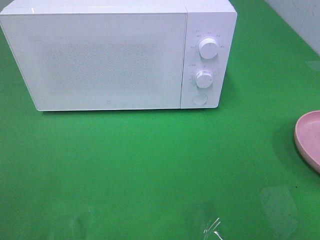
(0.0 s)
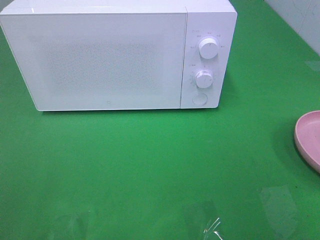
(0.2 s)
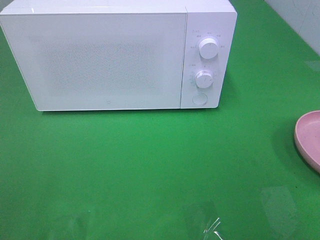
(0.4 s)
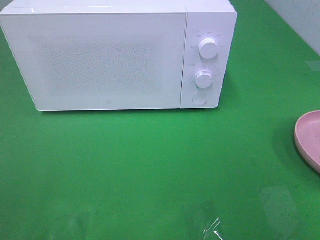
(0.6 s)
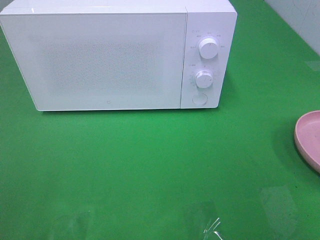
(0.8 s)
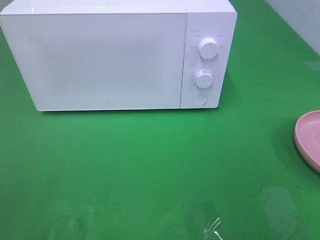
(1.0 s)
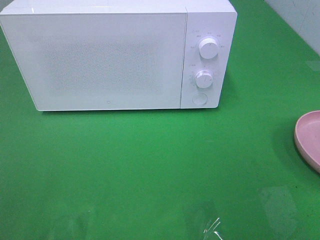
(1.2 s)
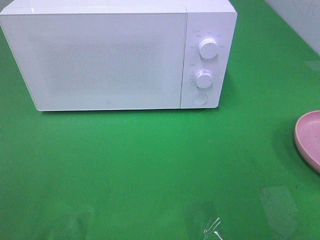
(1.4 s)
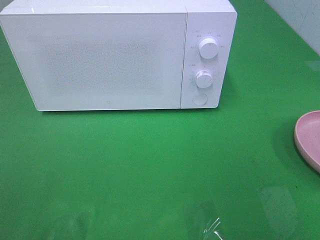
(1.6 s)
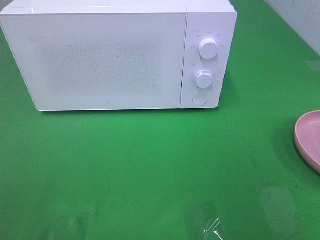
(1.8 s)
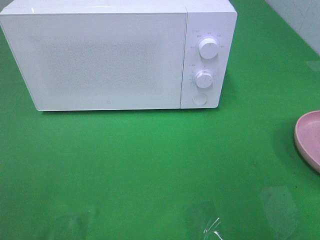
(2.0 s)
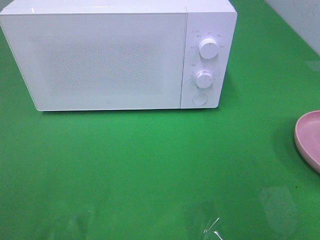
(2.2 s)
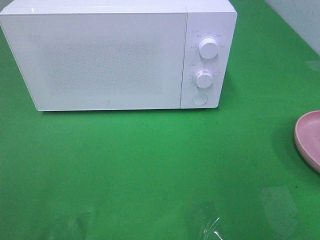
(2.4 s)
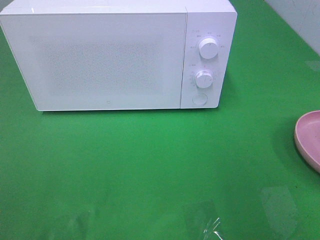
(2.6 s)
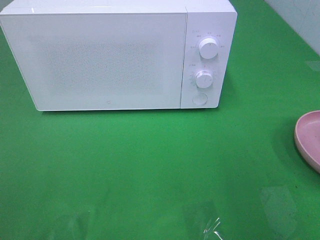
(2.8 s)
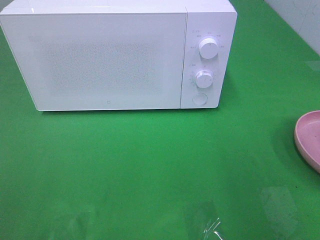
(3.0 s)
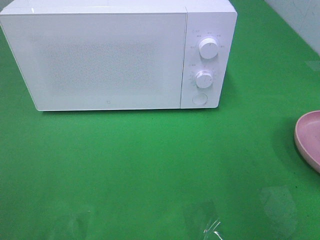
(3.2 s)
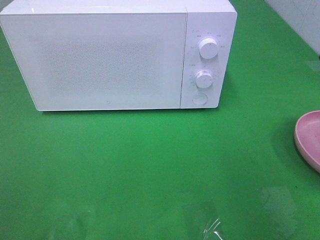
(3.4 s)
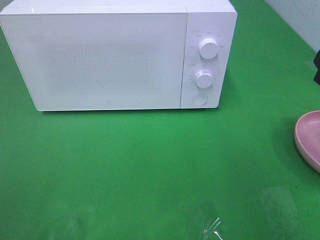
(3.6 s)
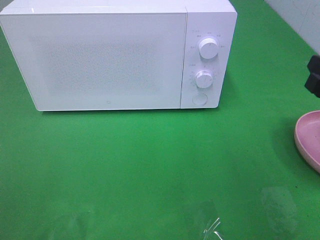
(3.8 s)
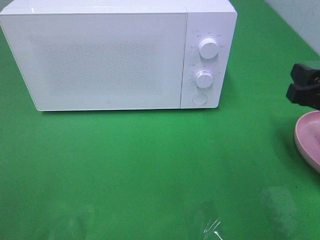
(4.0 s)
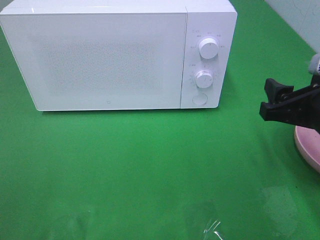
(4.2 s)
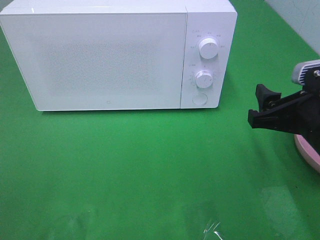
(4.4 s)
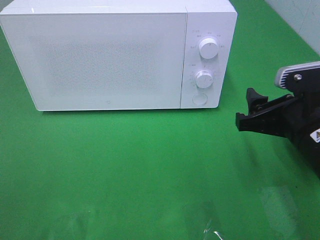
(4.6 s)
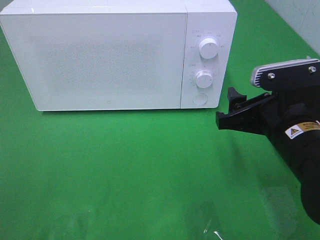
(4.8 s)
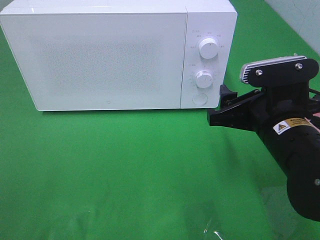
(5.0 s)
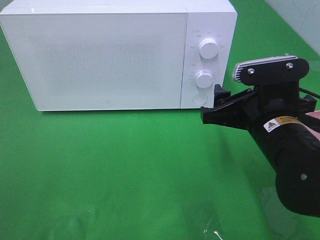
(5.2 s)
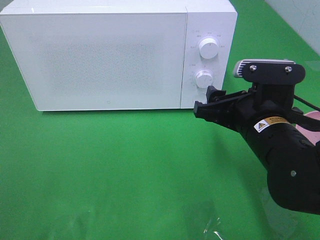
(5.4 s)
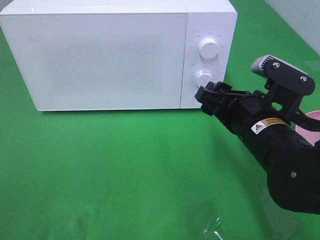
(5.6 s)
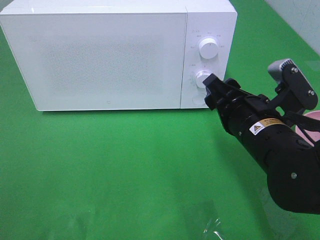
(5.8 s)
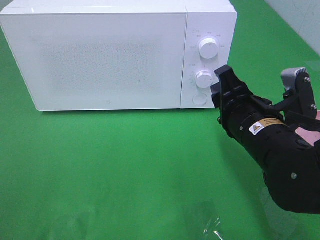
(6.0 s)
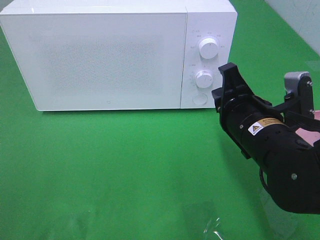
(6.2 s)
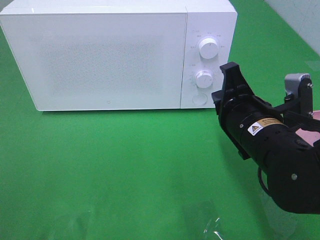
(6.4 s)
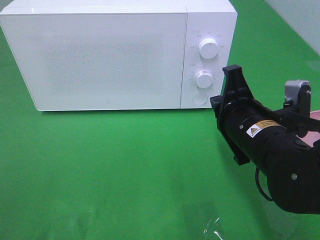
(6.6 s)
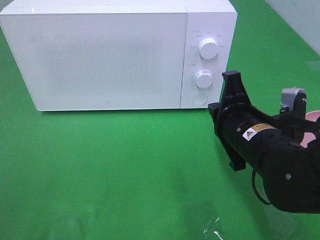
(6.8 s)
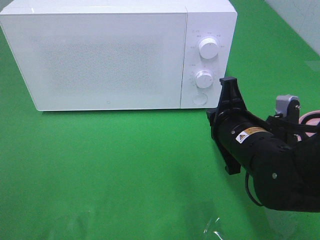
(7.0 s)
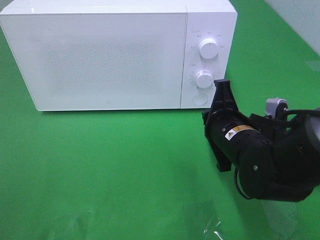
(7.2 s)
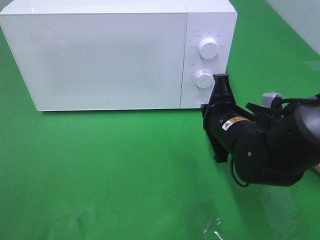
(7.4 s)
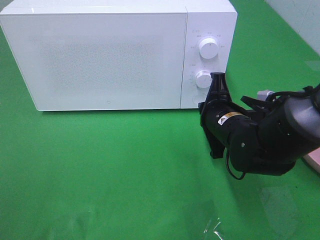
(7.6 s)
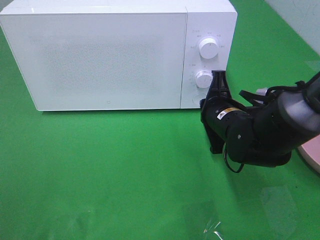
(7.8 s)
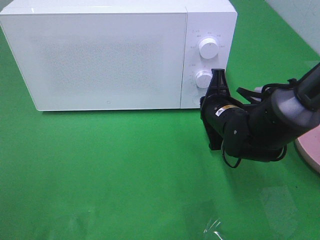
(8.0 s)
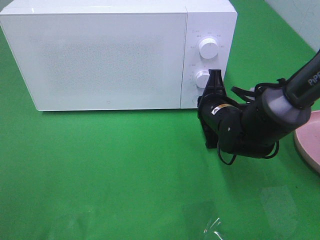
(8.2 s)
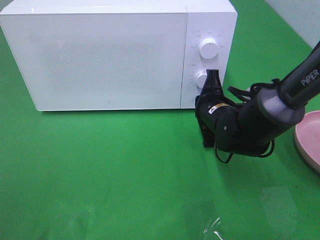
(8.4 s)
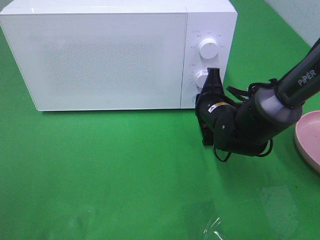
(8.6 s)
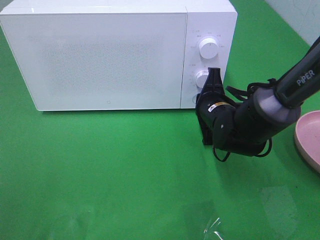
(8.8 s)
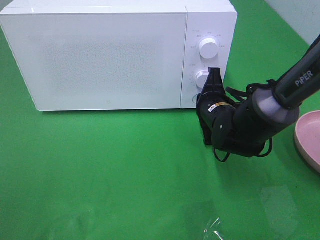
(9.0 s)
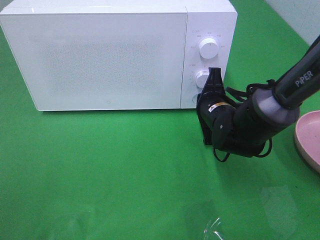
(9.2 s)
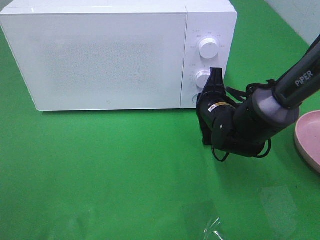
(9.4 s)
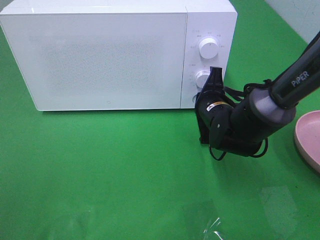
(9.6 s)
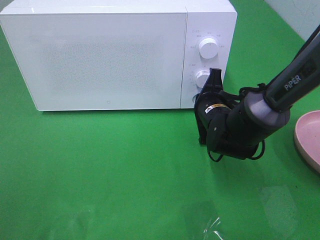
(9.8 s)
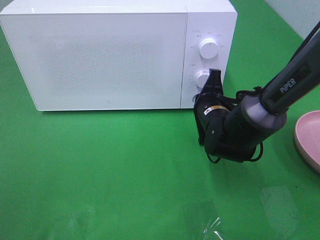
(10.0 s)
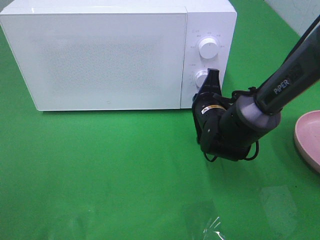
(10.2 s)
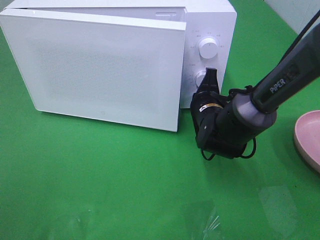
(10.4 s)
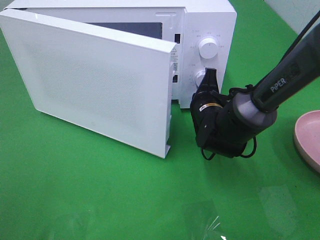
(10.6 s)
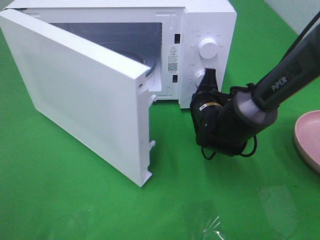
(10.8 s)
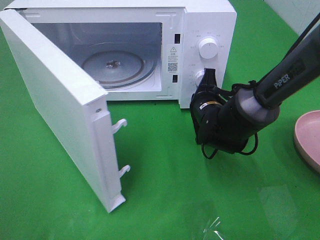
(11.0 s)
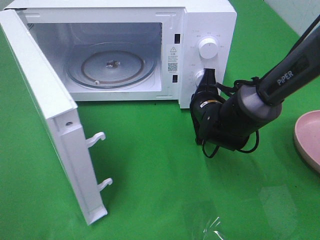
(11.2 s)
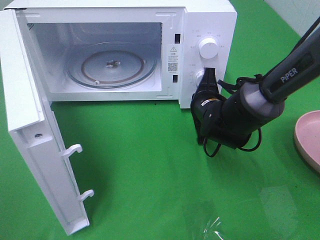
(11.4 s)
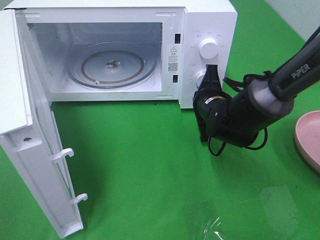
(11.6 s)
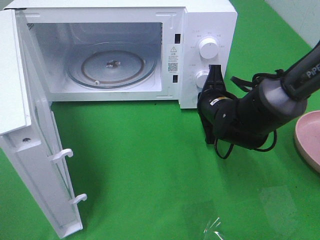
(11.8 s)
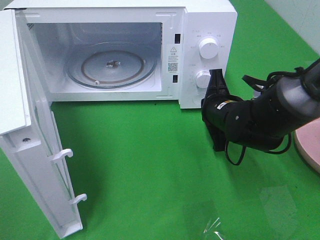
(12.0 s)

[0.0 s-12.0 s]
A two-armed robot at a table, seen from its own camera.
Task of the whole recording: Heat the burger.
3.0 to 4.4 s: The right gripper goes roughly 10 cm downward and to the left.
4.4 to 6.0 s: The right gripper travels to the left by some 10 cm, and closes.
6.0 to 7.6 s: The right gripper is displaced forward and downward by about 10 cm, and closes up.
7.6 to 9.0 s: The right gripper moves some 5 cm.
9.0 to 10.4 s: The grippers stay close to where they were, moving slightly.

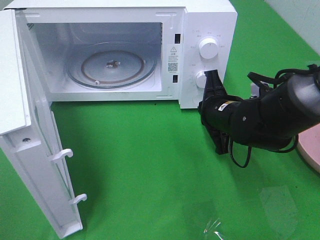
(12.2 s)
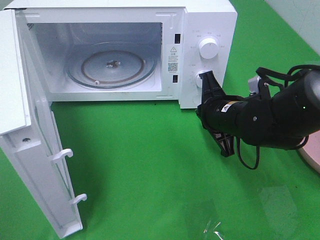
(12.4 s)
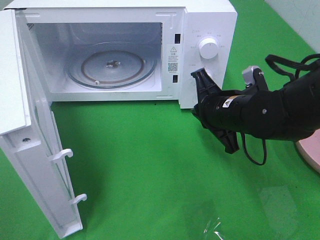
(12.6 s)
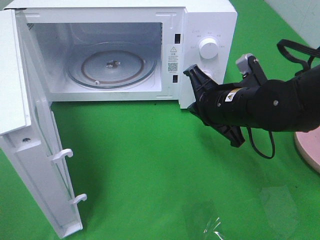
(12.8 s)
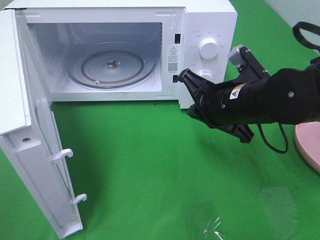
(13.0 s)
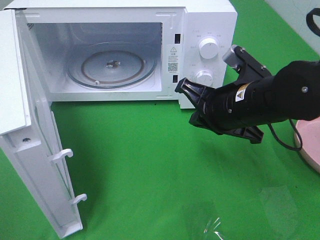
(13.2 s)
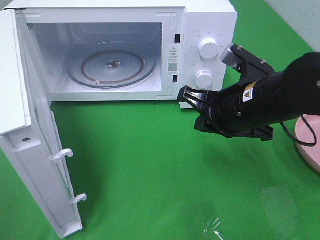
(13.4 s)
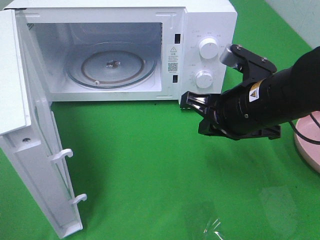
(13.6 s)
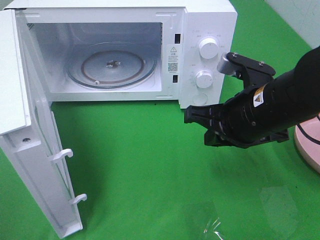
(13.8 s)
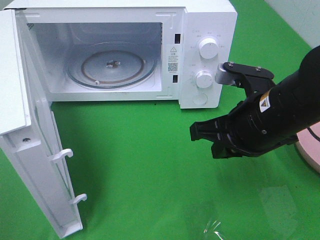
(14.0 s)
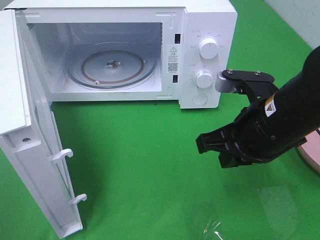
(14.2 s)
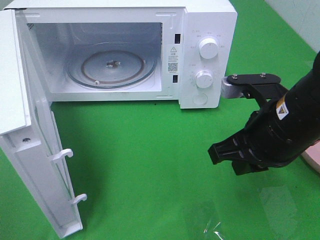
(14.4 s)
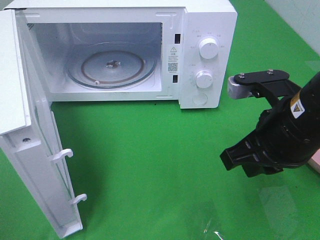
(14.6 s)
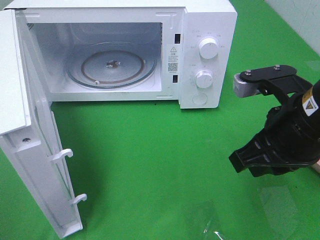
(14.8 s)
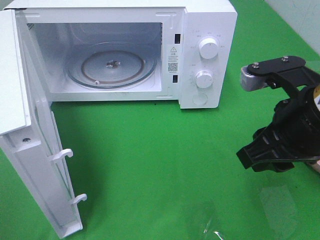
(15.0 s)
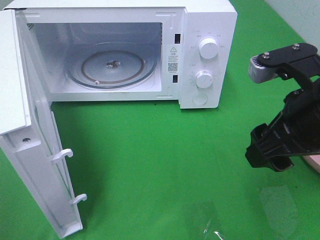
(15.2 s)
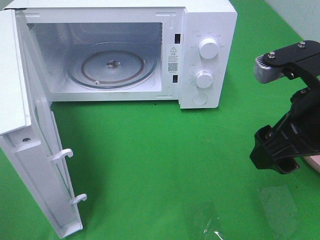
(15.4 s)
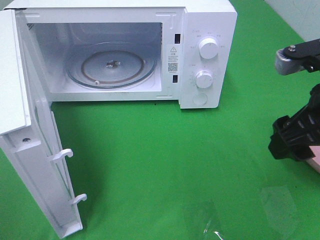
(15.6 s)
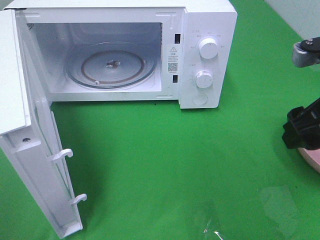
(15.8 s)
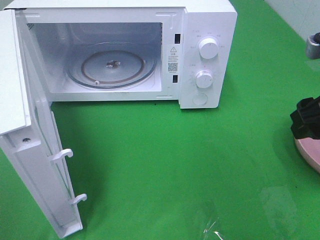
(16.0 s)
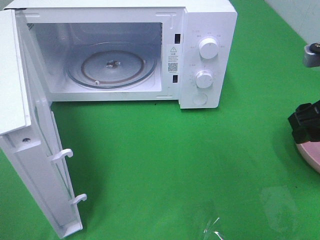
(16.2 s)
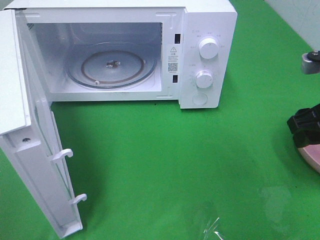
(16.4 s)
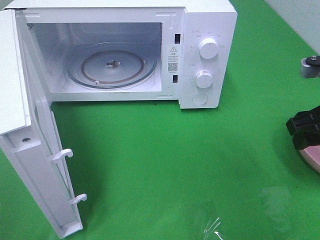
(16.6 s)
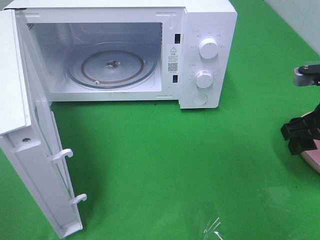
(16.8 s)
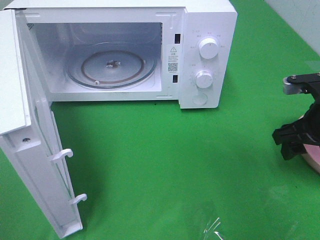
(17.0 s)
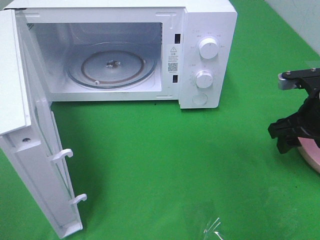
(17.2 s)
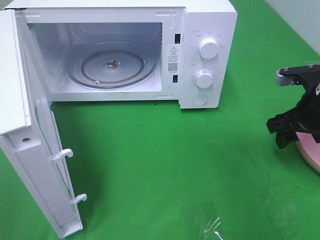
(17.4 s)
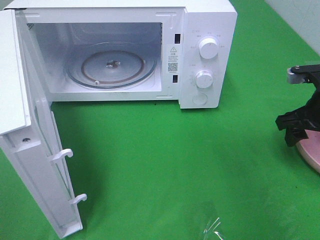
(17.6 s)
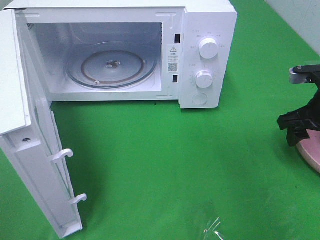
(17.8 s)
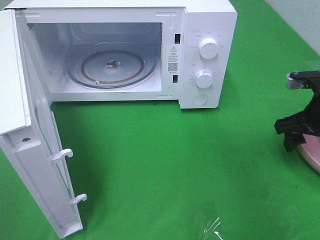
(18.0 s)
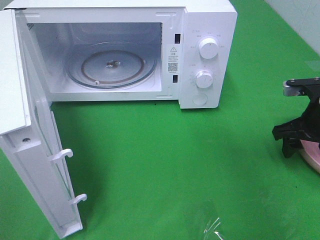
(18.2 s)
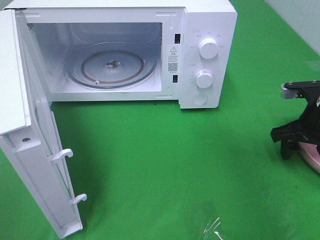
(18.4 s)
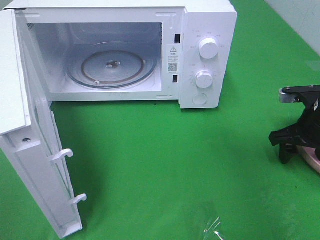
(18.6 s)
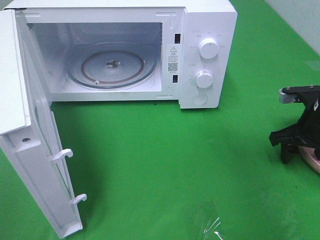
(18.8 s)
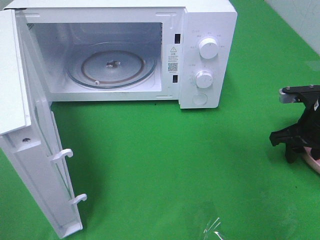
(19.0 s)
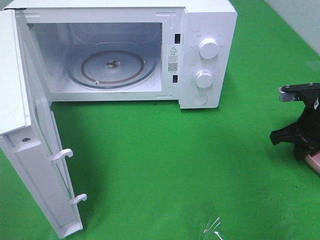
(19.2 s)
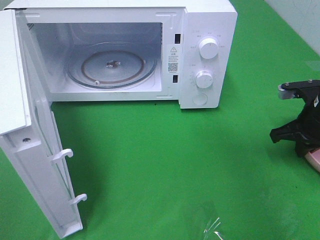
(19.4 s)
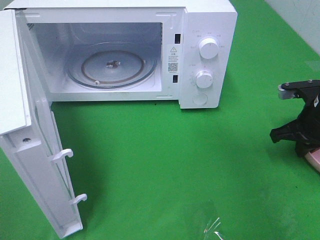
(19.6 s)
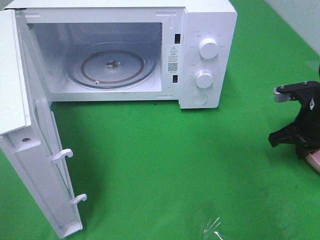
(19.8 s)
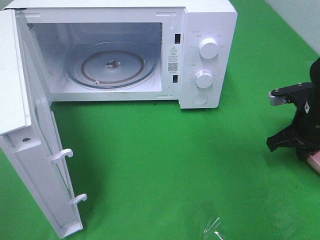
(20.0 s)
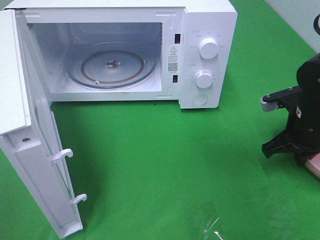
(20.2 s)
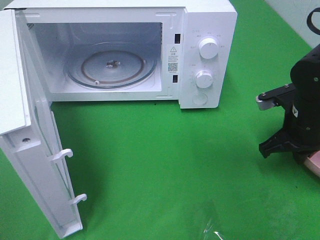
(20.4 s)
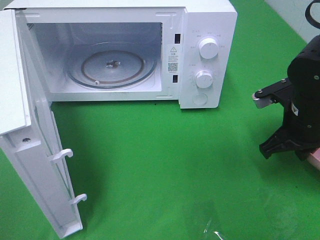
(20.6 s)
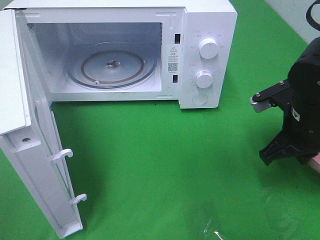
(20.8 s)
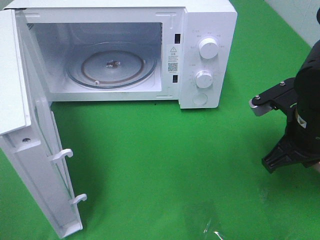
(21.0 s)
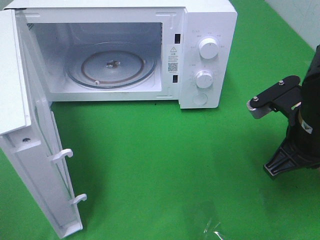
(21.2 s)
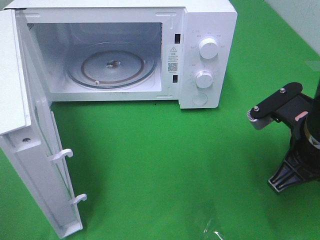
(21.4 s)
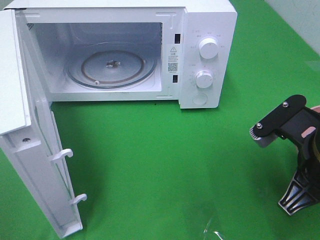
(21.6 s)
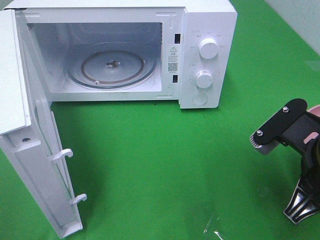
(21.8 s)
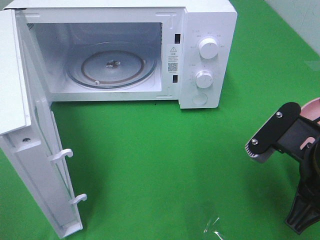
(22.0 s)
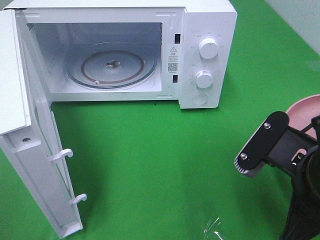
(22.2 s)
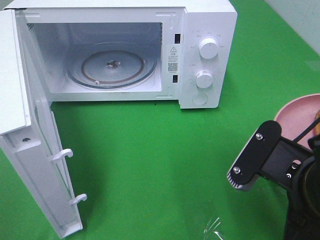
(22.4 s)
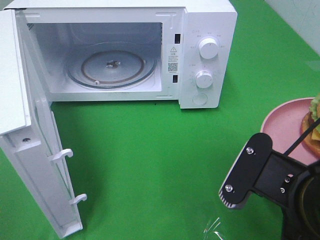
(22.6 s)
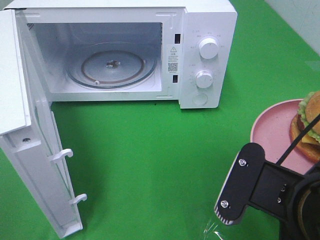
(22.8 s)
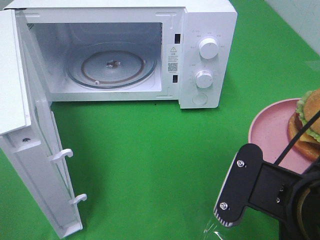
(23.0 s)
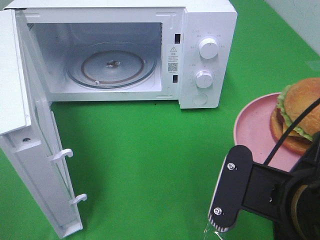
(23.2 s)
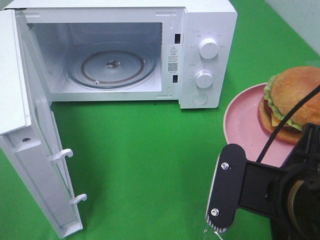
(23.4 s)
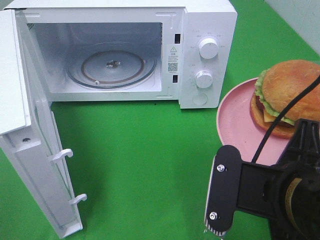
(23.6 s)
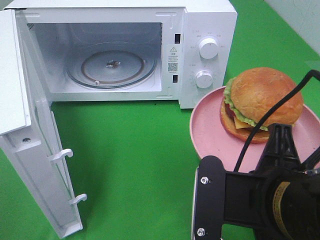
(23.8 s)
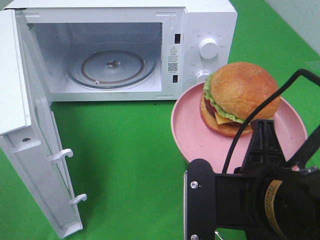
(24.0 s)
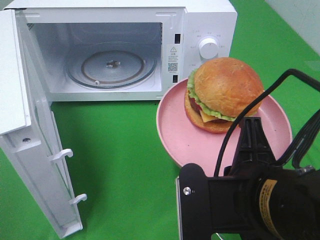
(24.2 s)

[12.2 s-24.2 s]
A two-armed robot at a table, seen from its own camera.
Task of the whole recording: Heat the burger.
Step, 12.2 to 20.2 s: Right hand: grab the plate with the hamburger.
12.2 to 13.8 s: The right gripper travels upward and backward by approximately 10 cm.
13.8 to 15.2 s: The right gripper heads upward, covering some 5 cm, and opens up.
15.2 to 16.6 s: The right gripper travels to the right and forward by roughly 10 cm.
16.6 to 18.2 s: The right gripper goes roughly 10 cm downward and forward.
18.2 to 19.8 s: The right gripper closes.
19.8 to 21.2 s: The right gripper is displaced backward, to the left and upward by about 15 cm.
21.2 to 22.6 s: The right gripper shifts some 15 cm backward and to the left.
